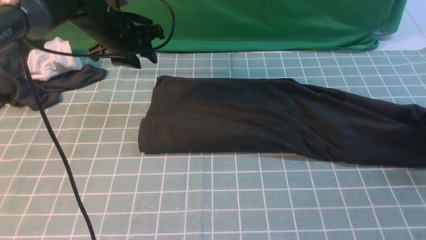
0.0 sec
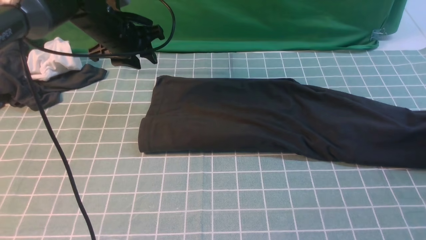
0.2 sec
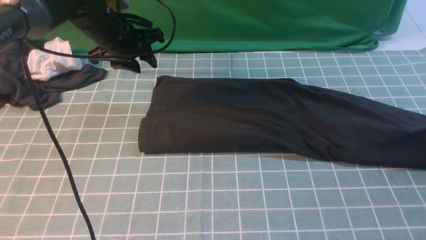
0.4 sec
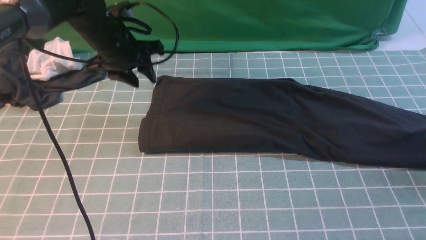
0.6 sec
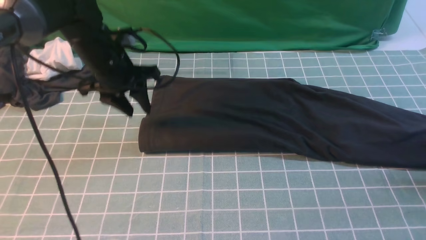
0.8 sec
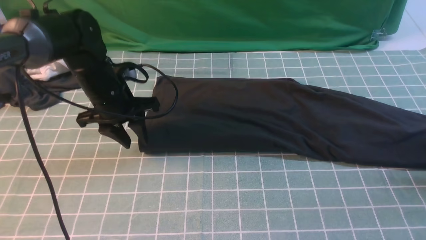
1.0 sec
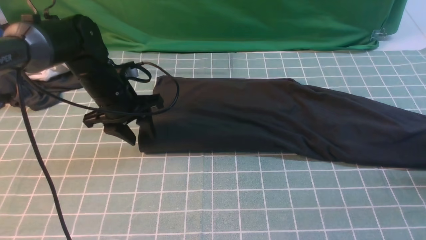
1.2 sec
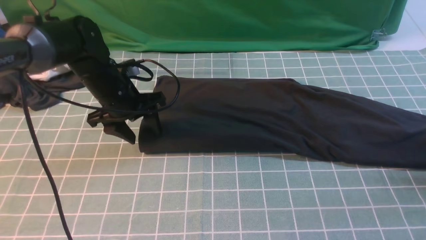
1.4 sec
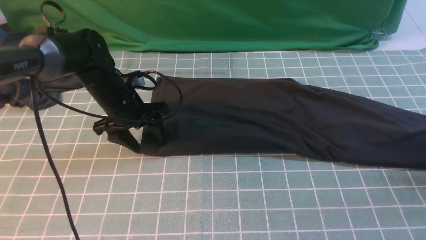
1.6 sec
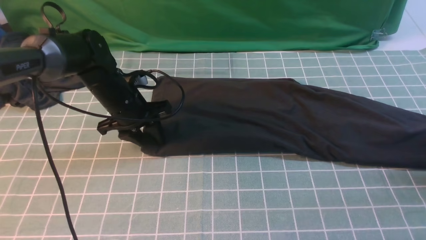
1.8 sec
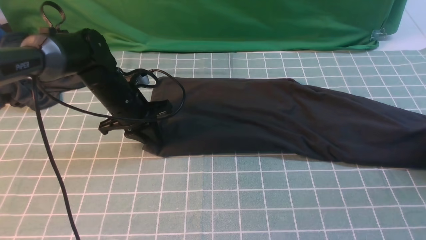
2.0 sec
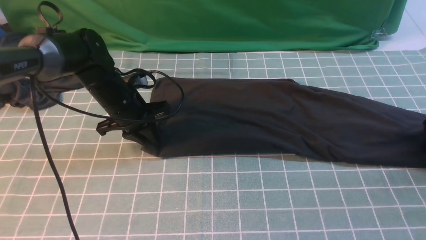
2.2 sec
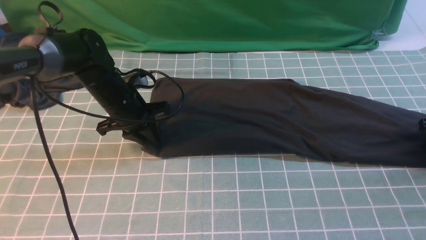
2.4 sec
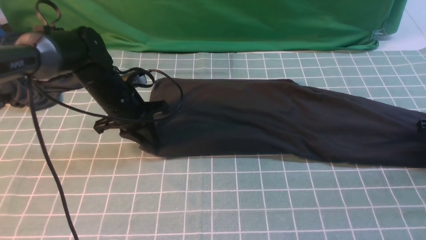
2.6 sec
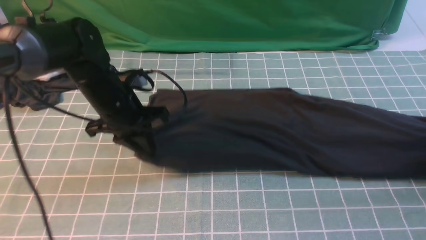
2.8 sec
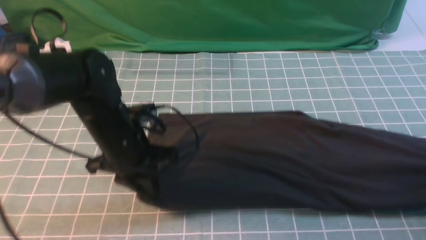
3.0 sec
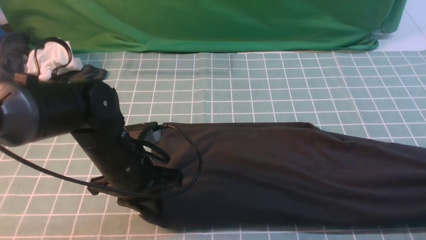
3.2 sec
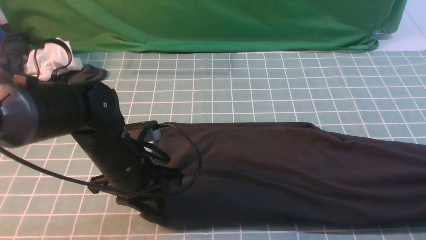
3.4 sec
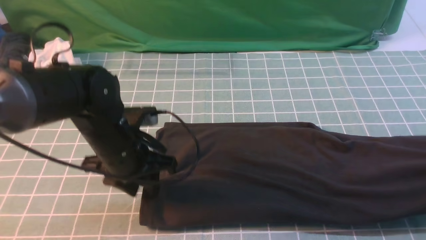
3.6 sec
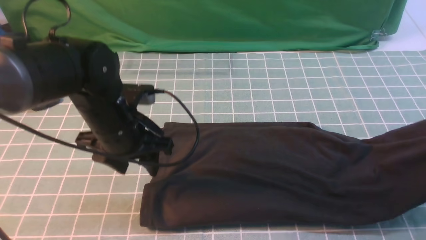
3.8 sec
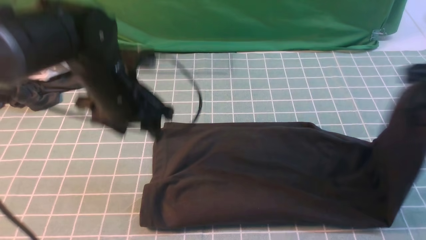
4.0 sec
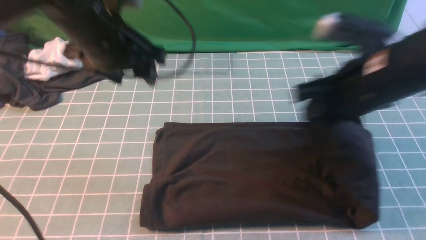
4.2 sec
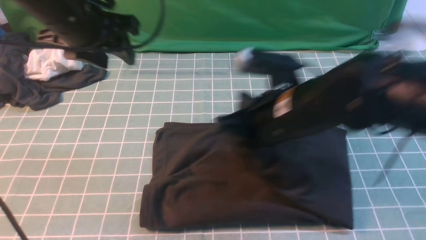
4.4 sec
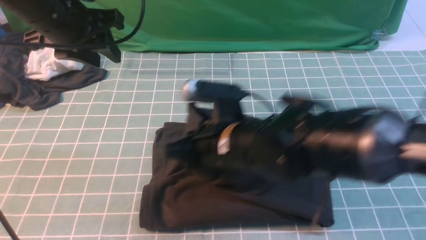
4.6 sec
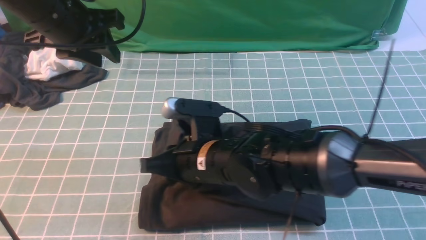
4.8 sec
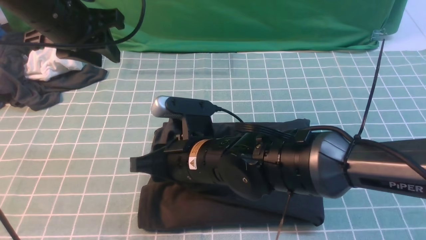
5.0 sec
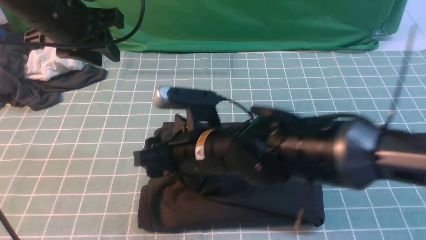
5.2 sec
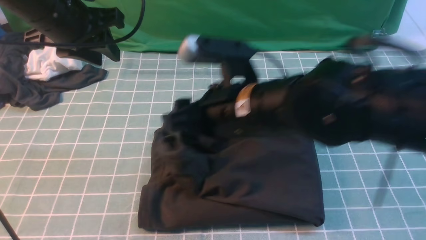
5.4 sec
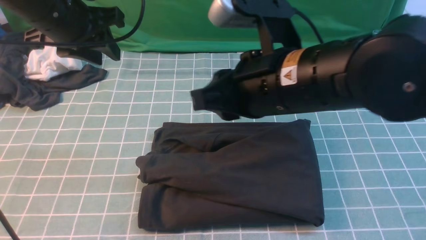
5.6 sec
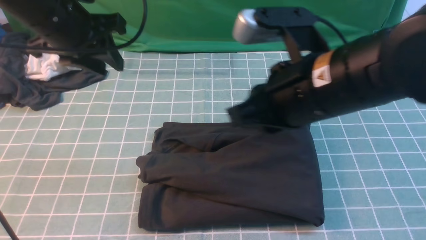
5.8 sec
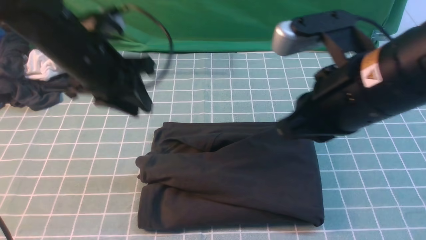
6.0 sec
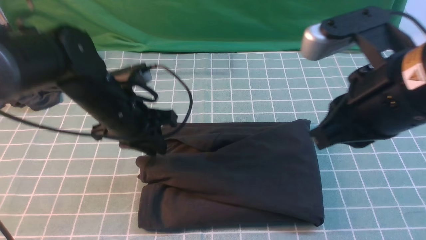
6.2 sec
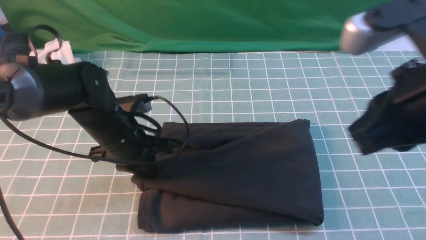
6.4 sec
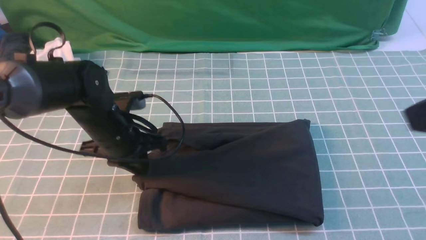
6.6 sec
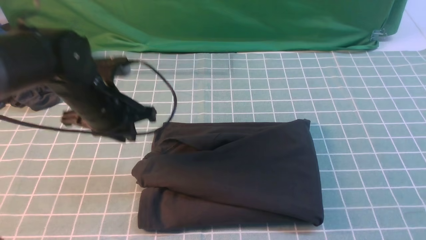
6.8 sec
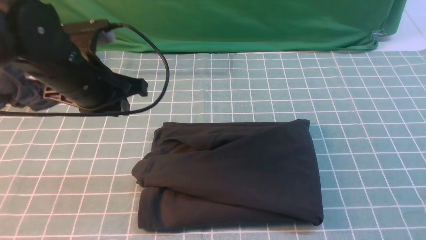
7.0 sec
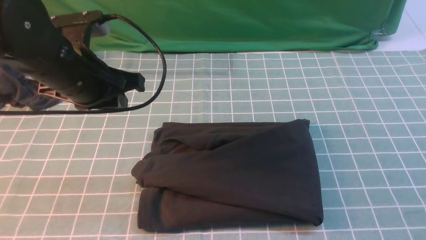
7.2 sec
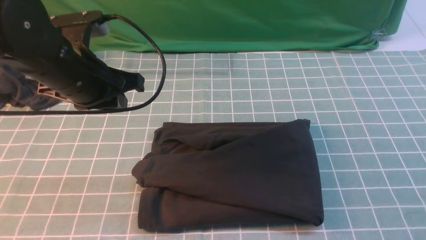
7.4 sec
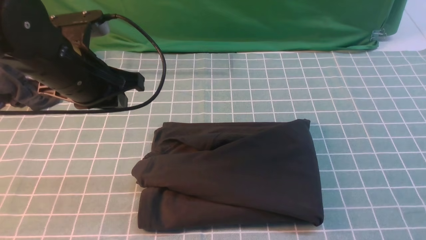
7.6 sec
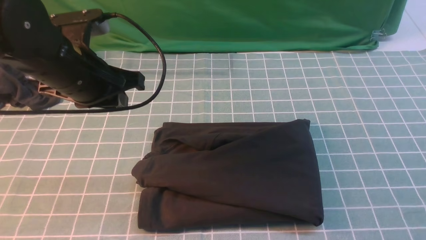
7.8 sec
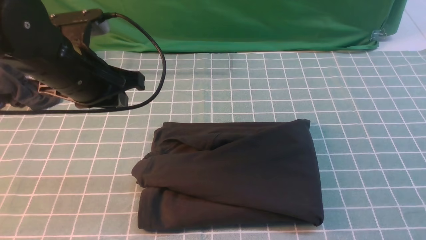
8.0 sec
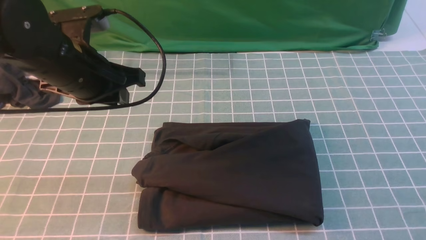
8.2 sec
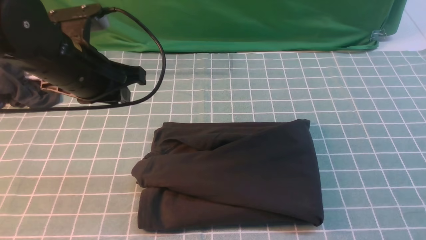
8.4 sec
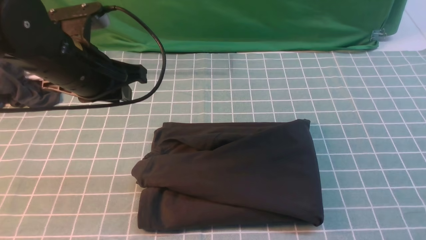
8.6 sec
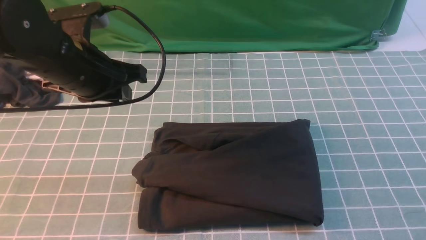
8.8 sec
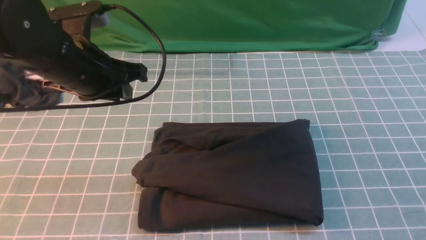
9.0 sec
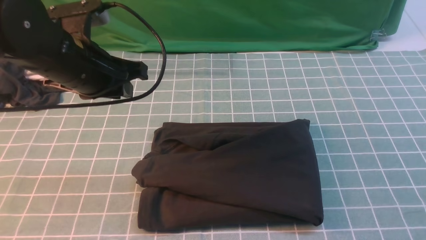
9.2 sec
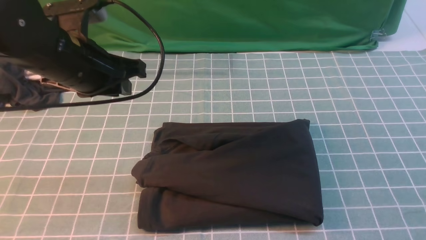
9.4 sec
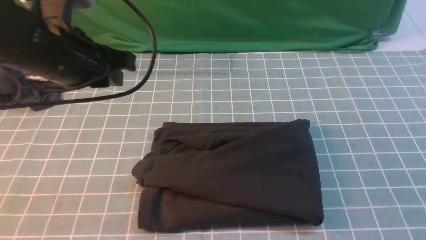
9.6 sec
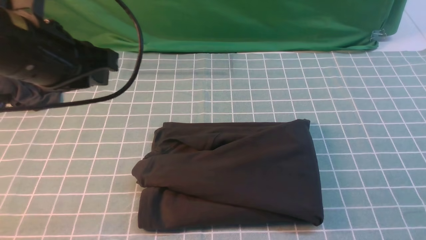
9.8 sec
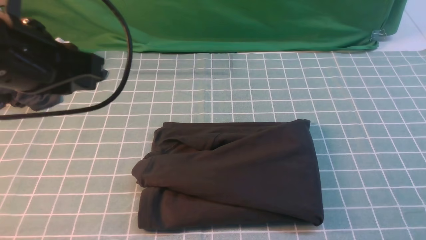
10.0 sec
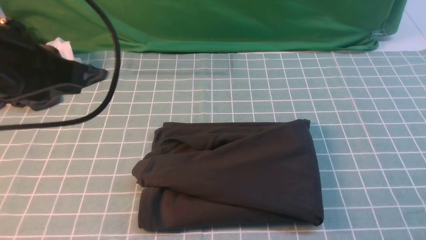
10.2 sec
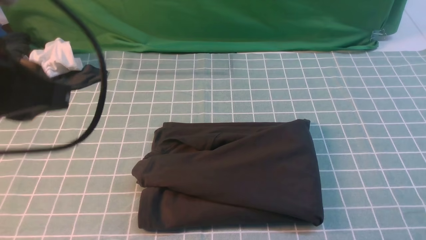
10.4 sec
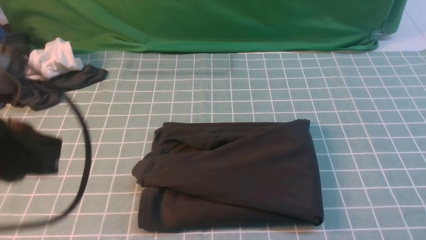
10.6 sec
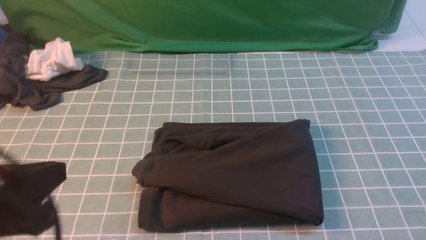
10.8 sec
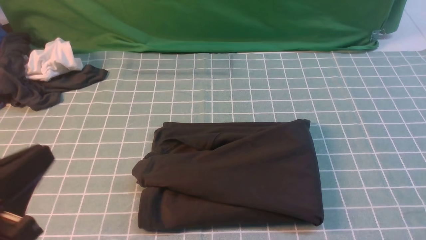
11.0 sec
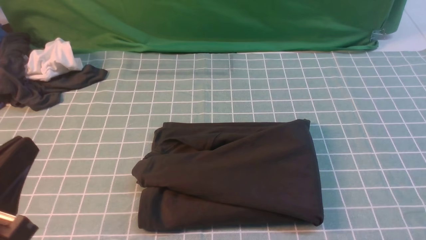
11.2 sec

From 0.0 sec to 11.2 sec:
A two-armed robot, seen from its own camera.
Step, from 0.0 sec to 3.4 sec: use the right arm to clamp the right edge of the fabric.
Step, from 3.6 sec to 5.4 sec: use the right arm to drag the right edge of the fabric to the left and folds it over the left edge.
From 0.0 sec to 1.6 sec: The left gripper moves downward and backward, about 10 cm. The right gripper opens its fingers.
From 1.6 sec to 3.2 sec: The left gripper heads backward, covering approximately 15 cm, and closes up. Meanwhile the right gripper travels backward by some 5 cm, and closes its fingers.
From 3.2 sec to 4.8 sec: The left gripper heads upward, forward and to the left, covering some 20 cm, and opens its fingers, while the right gripper moves to the left, about 50 cm.
From 4.8 sec to 6.4 sec: The left gripper moves downward, roughly 15 cm, and closes, while the right gripper goes roughly 30 cm to the right and upward, and opens, then closes again.
From 6.4 sec to 8.0 sec: The right gripper goes roughly 20 cm backward, to the right and downward; the left gripper goes about 10 cm upward.
From 8.0 sec to 9.6 sec: The left gripper ends up approximately 5 cm from where it was.
From 9.6 sec to 11.2 sec: The left gripper shifts about 20 cm backward.

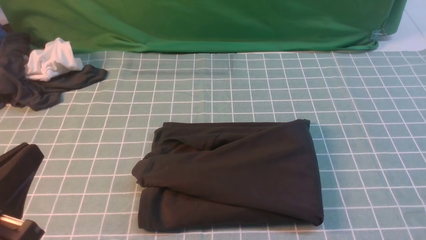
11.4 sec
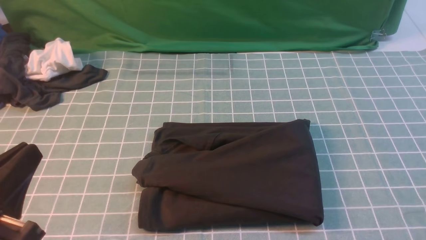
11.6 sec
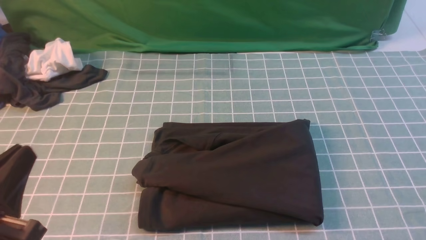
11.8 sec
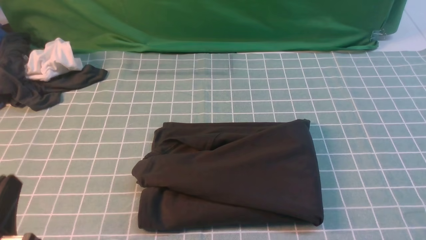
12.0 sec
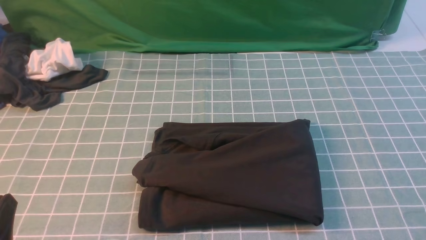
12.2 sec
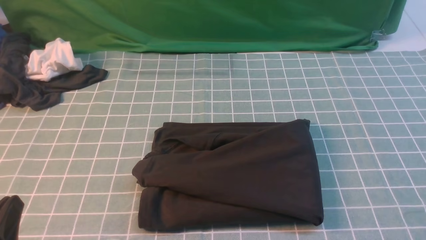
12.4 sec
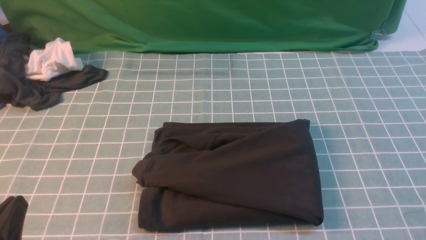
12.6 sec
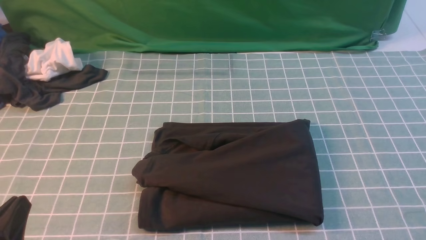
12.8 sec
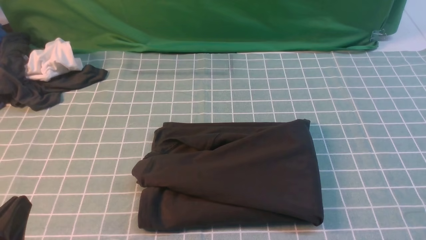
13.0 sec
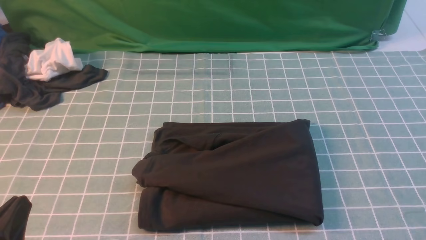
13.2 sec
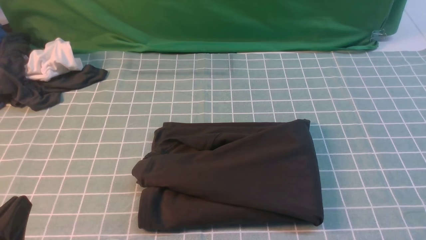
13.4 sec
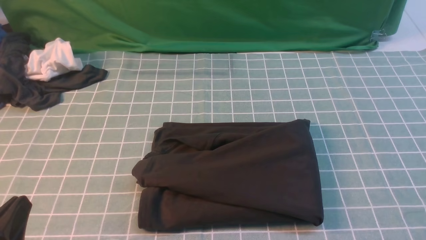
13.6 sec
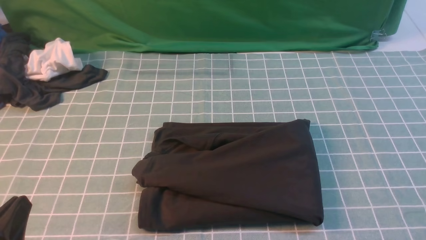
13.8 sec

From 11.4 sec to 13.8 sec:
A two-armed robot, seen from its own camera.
From 11.4 sec to 12.6 sec: The left gripper is displaced downward by some 10 cm.
From 12.6 sec to 13.8 sec: Neither gripper changes place.

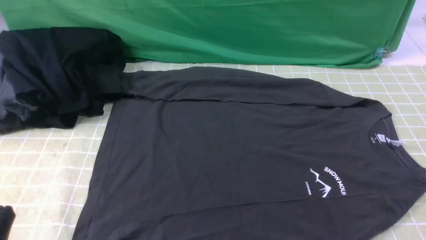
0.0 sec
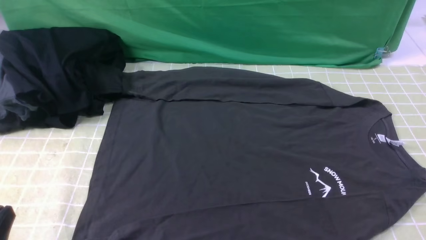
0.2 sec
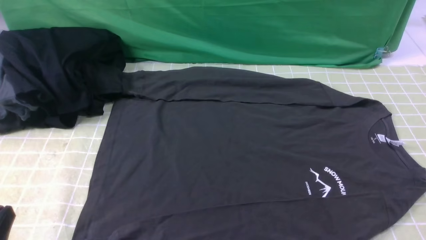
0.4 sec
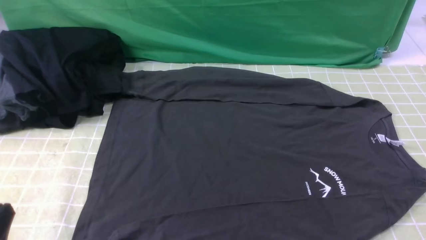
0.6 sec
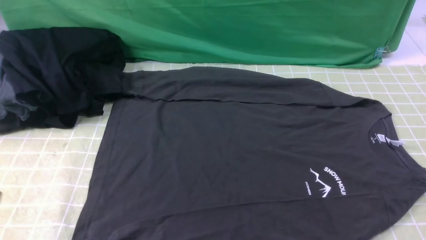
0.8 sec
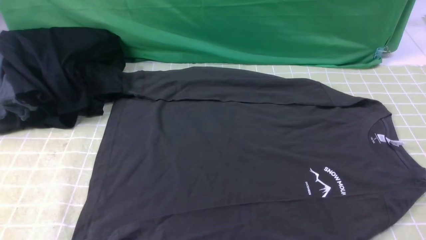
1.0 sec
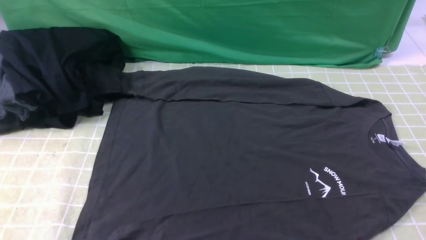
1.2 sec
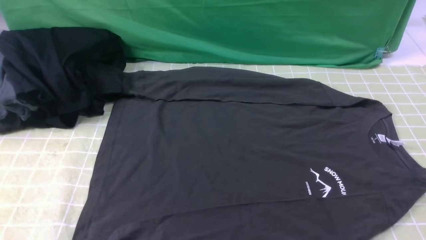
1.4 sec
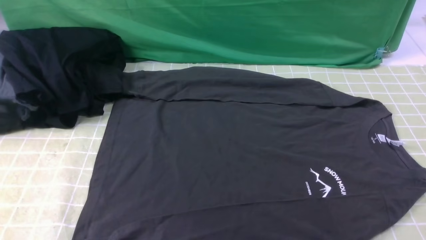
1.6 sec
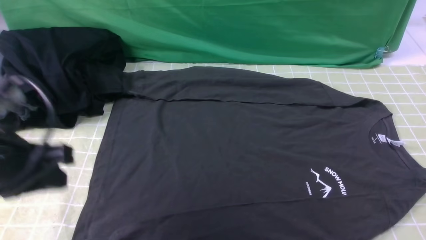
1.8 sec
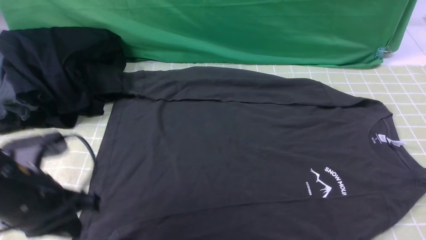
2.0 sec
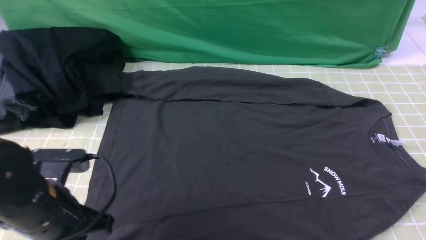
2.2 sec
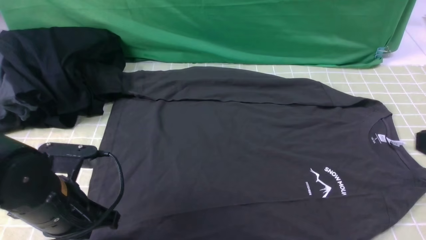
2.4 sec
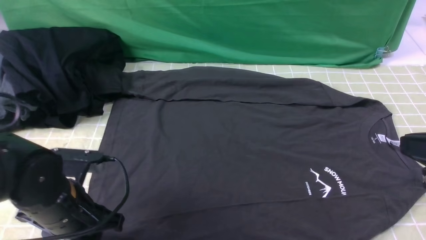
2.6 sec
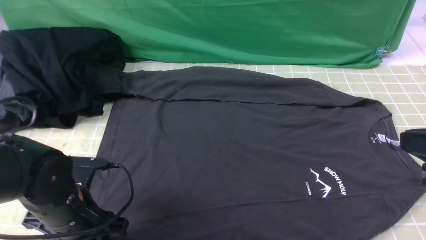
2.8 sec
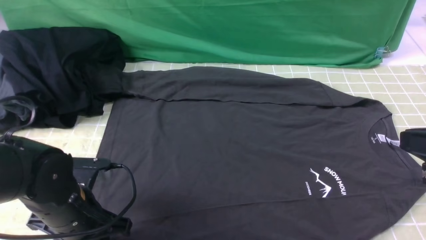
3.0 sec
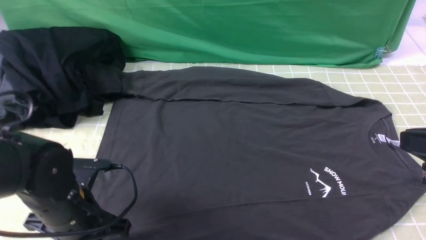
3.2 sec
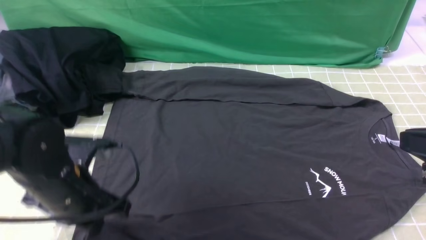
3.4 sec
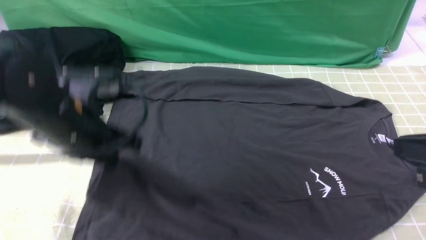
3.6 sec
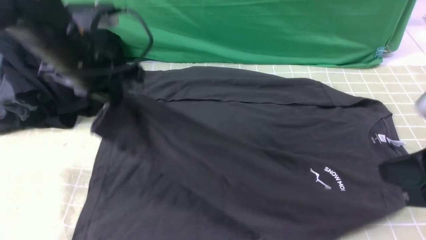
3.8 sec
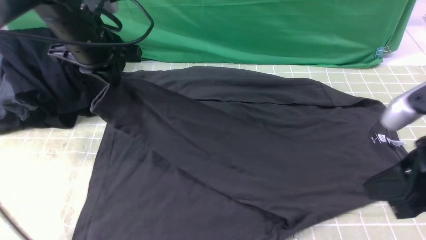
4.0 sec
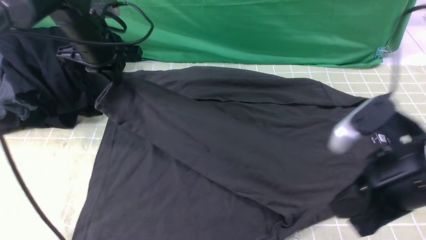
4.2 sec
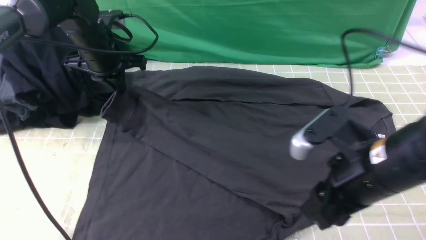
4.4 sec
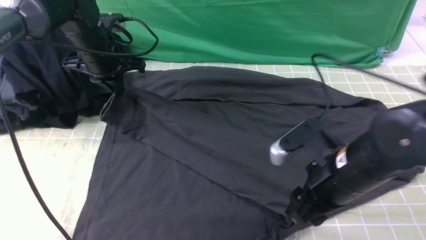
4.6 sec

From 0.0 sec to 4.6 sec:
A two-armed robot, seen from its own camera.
Step, from 0.0 sec to 3.0 sec: use the left arm to clamp the cuff closest to it.
From 1.6 sec to 3.0 sec: The right gripper travels upward, forward and to the left by some 15 cm, and closes its fingers, while the left gripper heads downward and forward, covering approximately 20 cm.
From 3.0 sec to 4.6 sec: The left gripper heads forward, covering about 25 cm, and closes. The right gripper shifts roughly 20 cm downward, to the left and forward, and opens.
